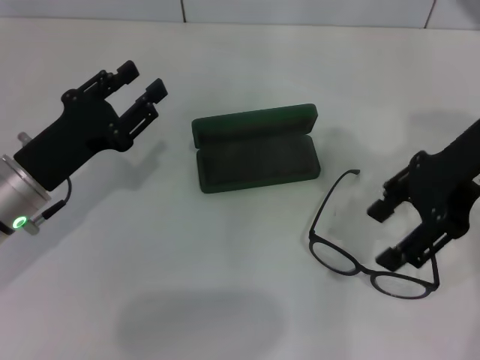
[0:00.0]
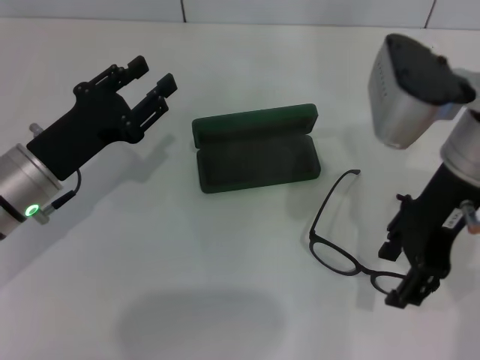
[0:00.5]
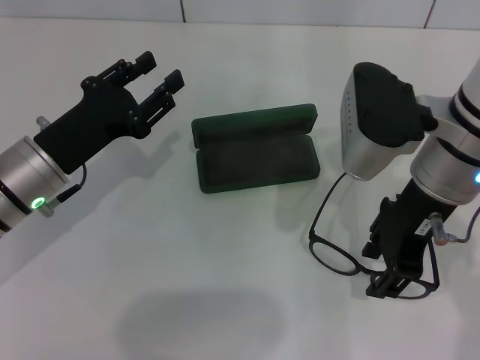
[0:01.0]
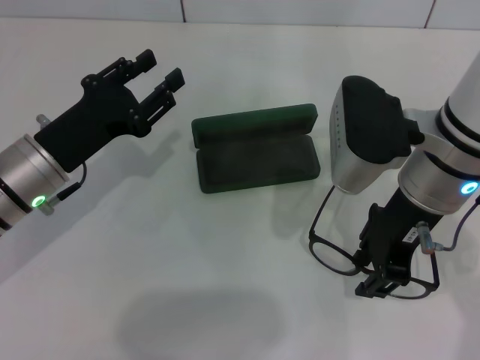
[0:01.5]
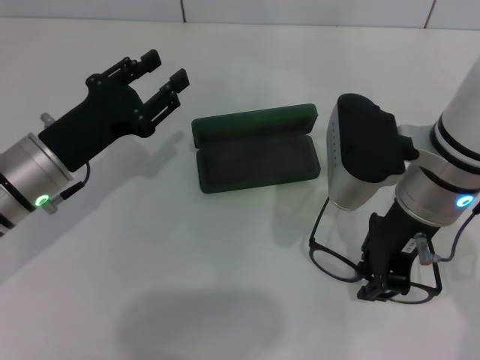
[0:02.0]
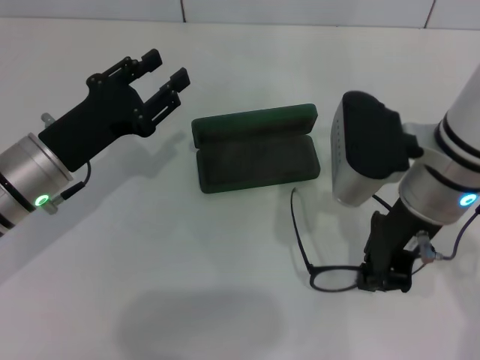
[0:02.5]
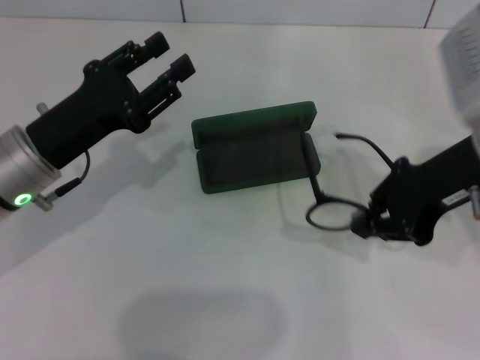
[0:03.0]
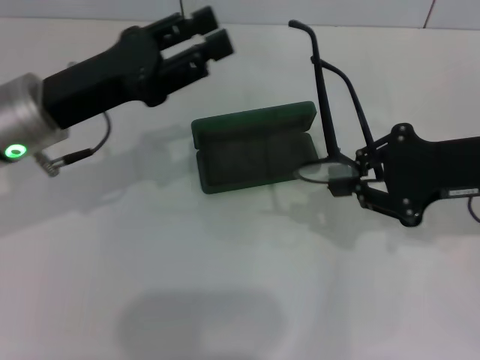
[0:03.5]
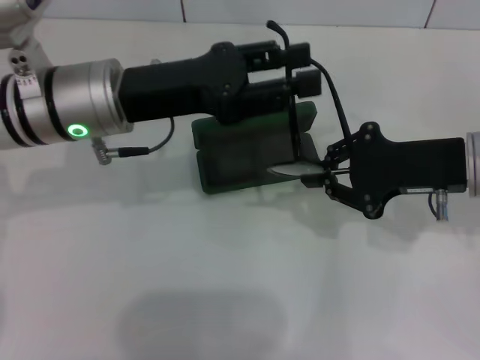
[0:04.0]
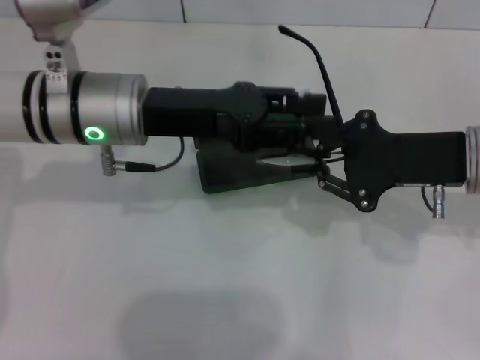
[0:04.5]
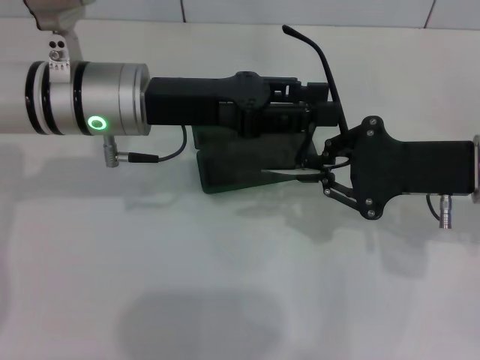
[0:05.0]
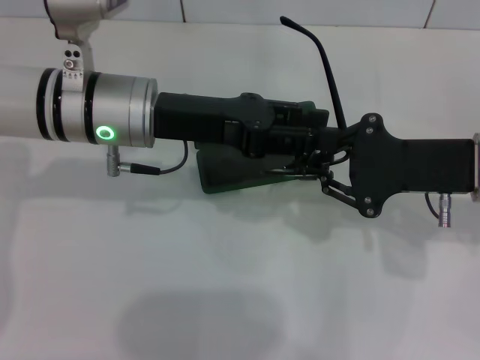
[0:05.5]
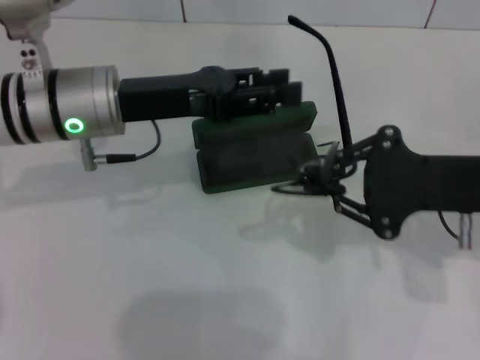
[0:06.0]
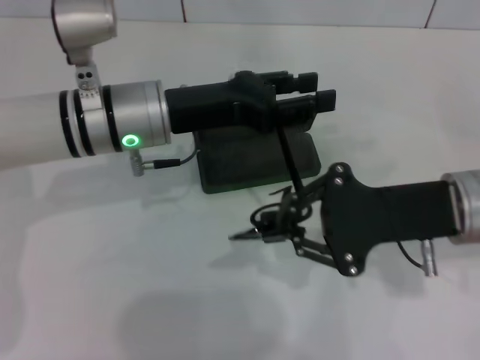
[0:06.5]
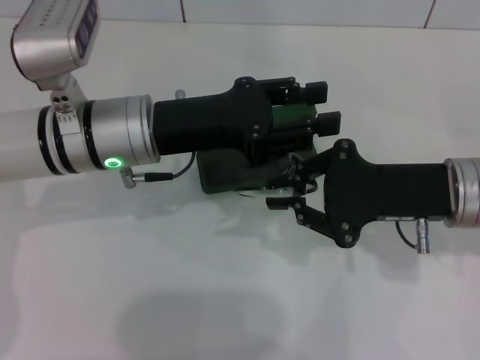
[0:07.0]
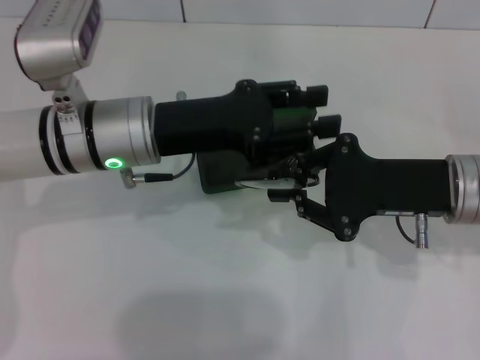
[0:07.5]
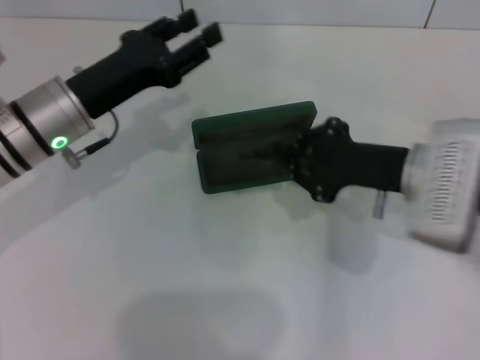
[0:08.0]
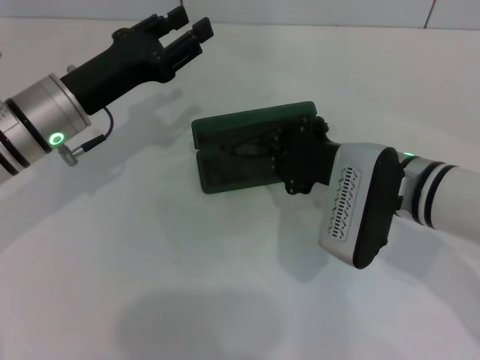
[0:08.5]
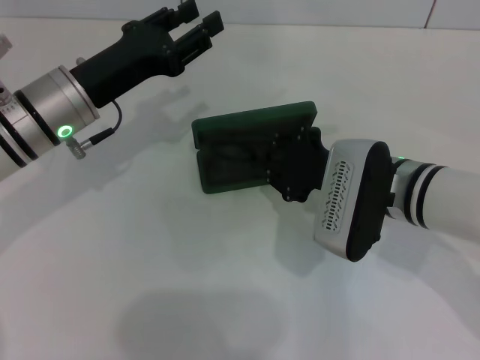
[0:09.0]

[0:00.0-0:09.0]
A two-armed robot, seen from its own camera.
Step, 0.0 to 2.0 s: Grab the eyeglass frame with your right hand.
Step, 3.0 to 7.5 s: Lift the glasses with your right hand.
0.0 to 2.0 s: The right gripper heads downward and to the left, covering approximately 10 cm, and closes up.
2.0 to 4.5 s: The right gripper is displaced to the right by some 10 cm, and closes up. Meanwhile the left gripper moves upward and to the right, approximately 10 cm.
7.0 to 9.0 s: Both grippers travel together to the left, some 5 cm.

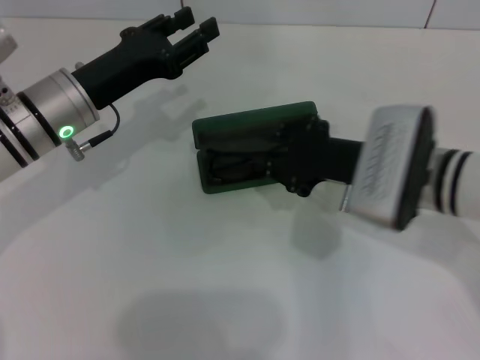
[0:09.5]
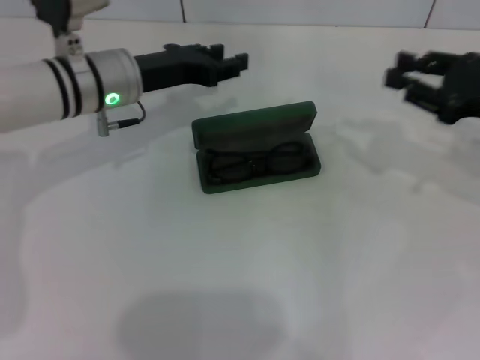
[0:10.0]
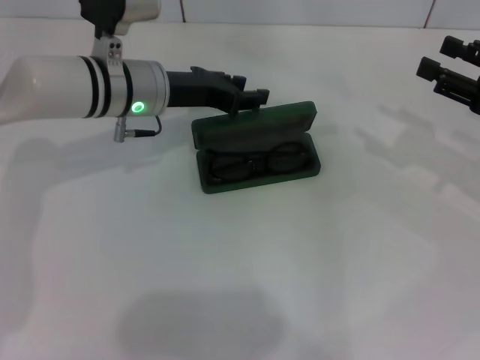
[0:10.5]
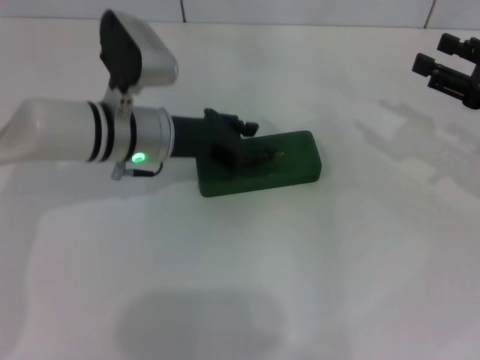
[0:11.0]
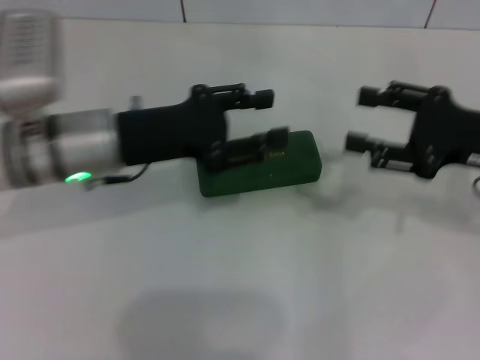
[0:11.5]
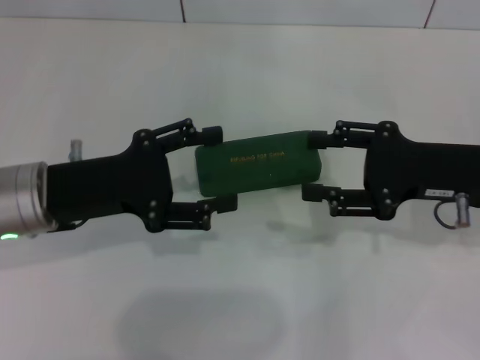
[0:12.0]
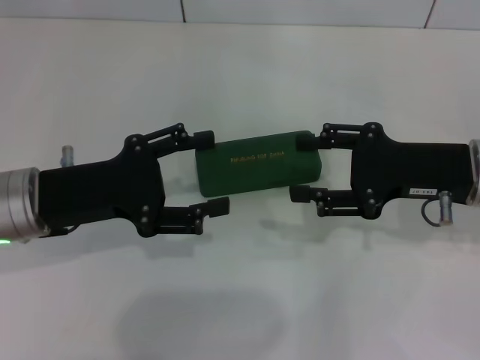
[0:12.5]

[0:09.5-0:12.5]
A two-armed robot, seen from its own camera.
Step, 9.5 to 10.5 s: Close the glasses case with your left hand.
9.5 to 11.0 s: The right gripper moves to the right, roughly 15 cm, and opens up, while the left gripper travels to the right by about 5 cm.
11.0 to 12.5 s: The right gripper heads to the left, covering some 10 cm. Meanwhile the left gripper goes about 15 cm backward and to the left, and opens up.

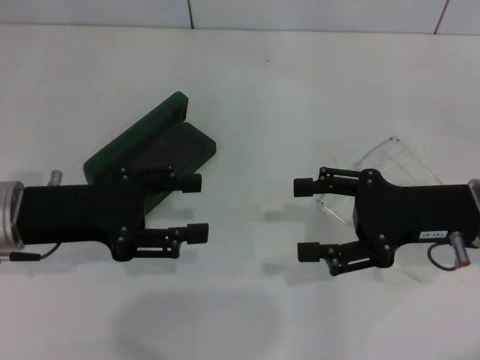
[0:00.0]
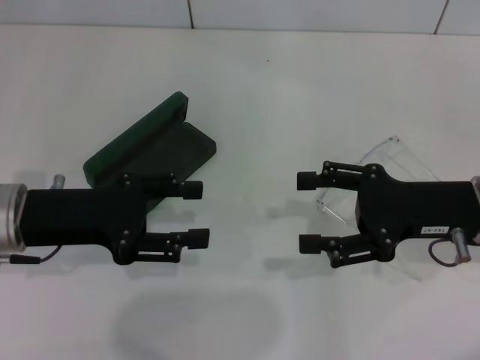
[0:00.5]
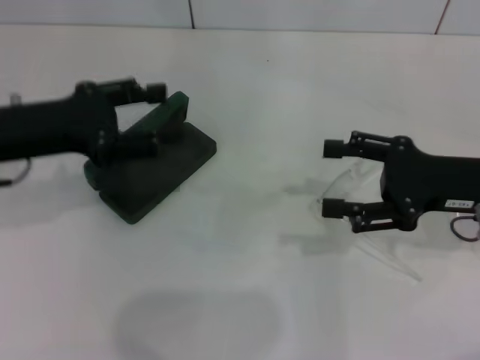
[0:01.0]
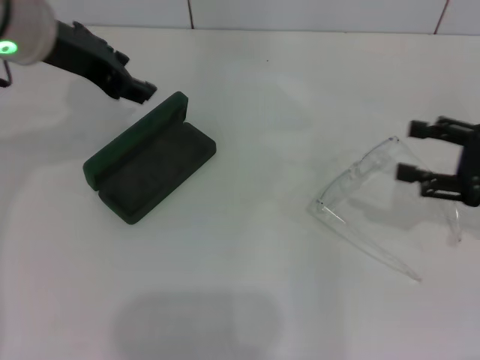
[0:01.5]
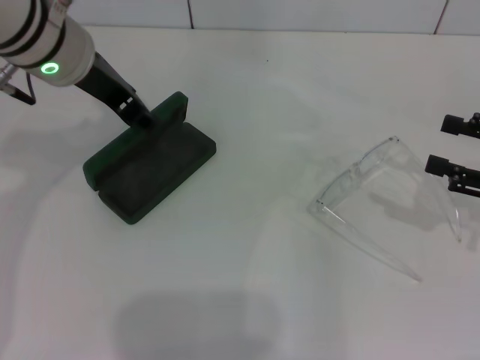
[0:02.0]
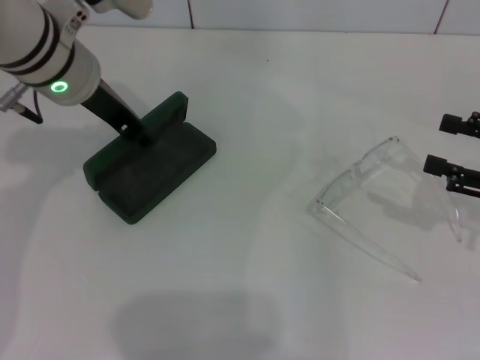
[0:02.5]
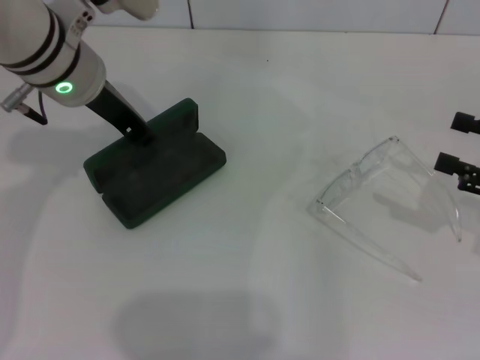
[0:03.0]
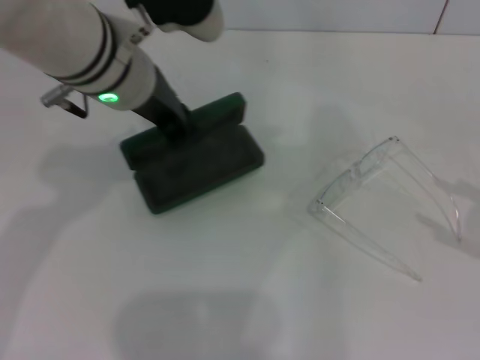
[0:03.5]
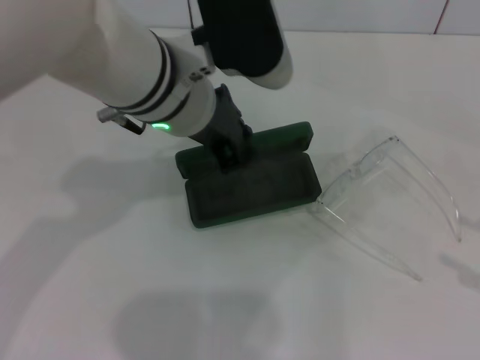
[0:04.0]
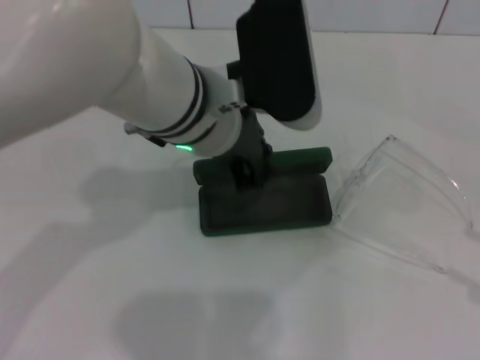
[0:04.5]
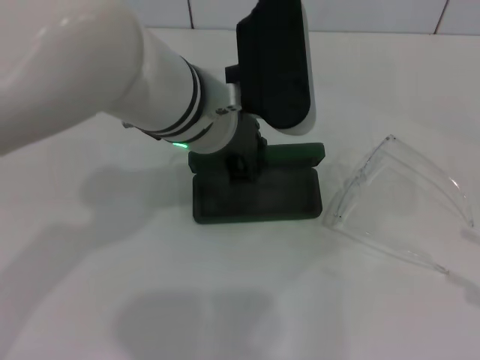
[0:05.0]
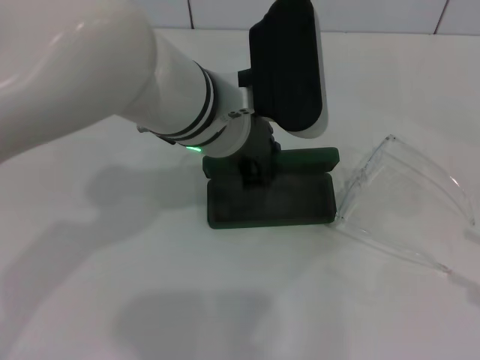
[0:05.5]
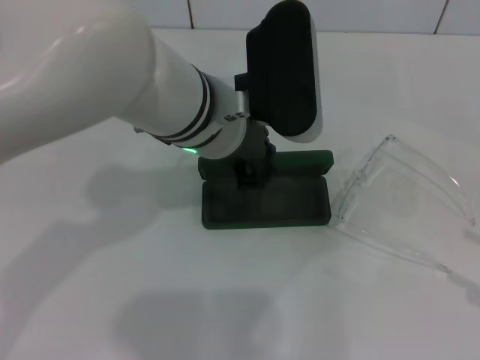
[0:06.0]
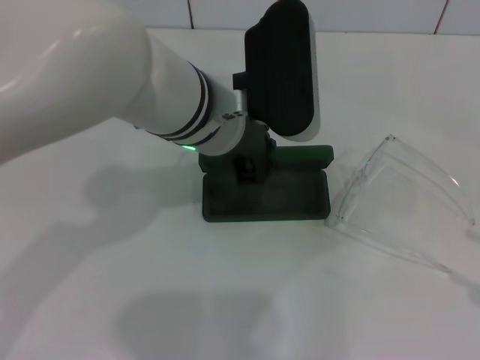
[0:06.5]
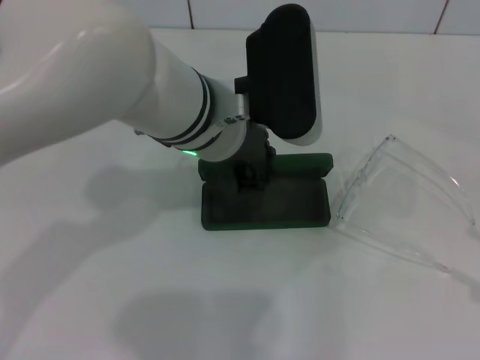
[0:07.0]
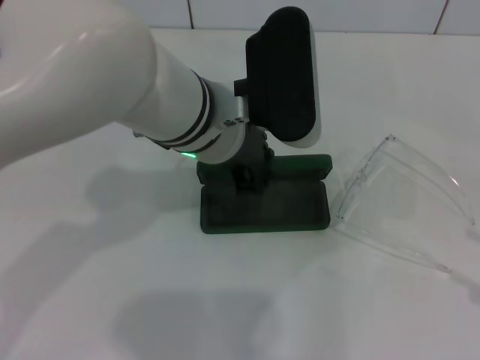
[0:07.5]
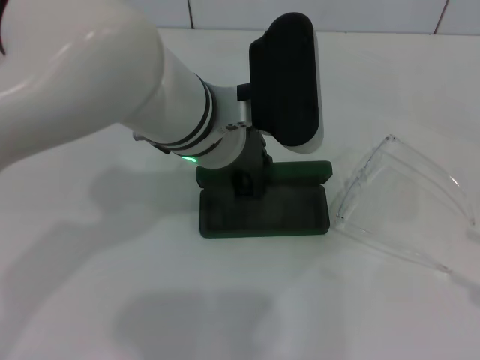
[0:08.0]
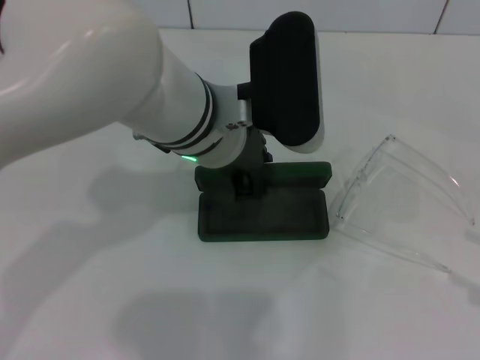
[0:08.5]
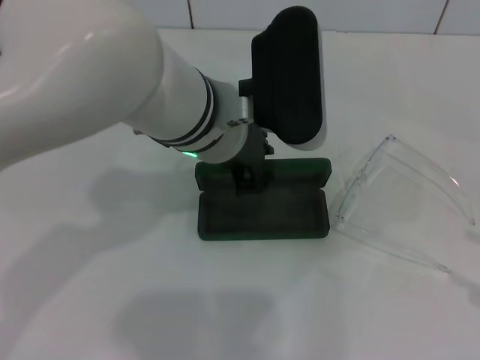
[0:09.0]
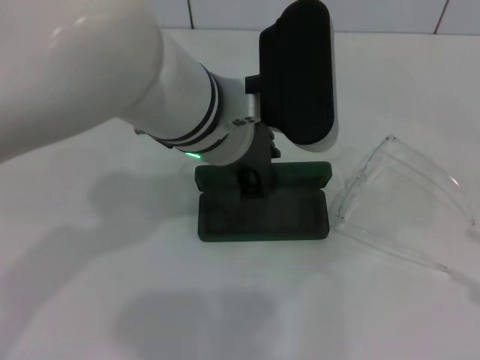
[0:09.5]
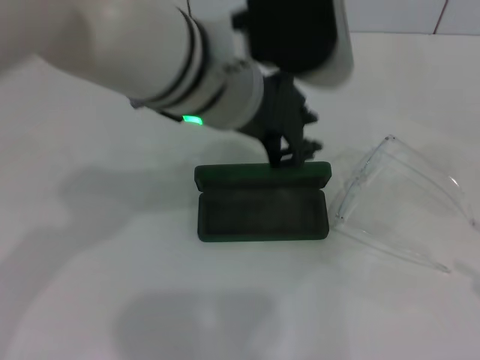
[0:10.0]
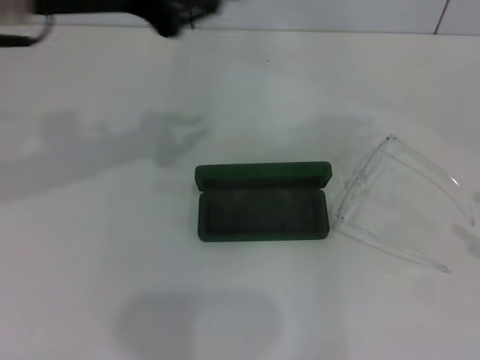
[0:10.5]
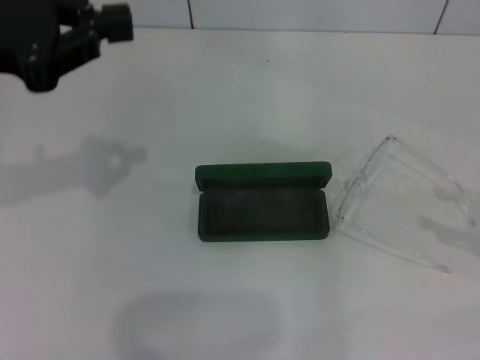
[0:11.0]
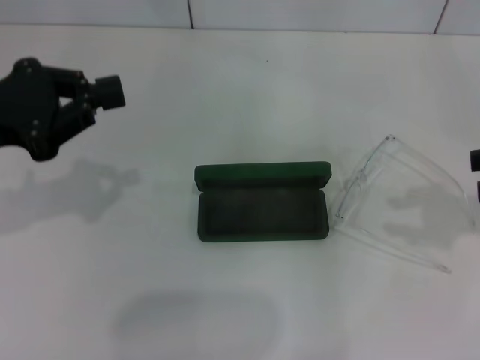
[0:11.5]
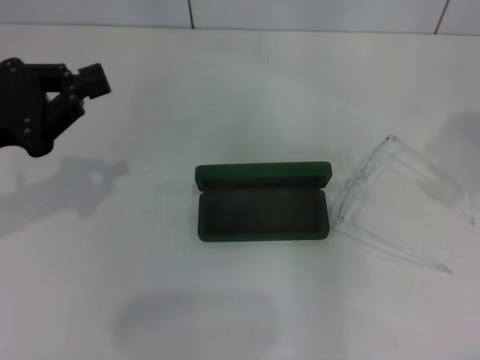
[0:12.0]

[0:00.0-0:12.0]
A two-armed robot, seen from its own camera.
Step, 0.0 to 2.5 s: Grab the glasses case with your left hand.
Step, 3.0 to 9.0 s: Place the glasses case in the center of the table with your left hand.
0.0 to 2.0 s: The right gripper is displaced to the right by about 10 cm. Meanwhile the left gripper is displaced upward, forward and to the right by roughly 15 cm.
2.0 to 4.0 s: The right gripper goes roughly 10 cm backward and to the right, while the left gripper shifts approximately 10 cm to the right, and closes.
6.0 to 8.0 s: Both grippers stay put.
8.0 to 10.0 s: The left gripper heads upward, covering approximately 5 cm.
10.0 to 12.0 s: The right gripper moves upward, forward and to the left, about 25 cm, and closes. The left gripper shifts approximately 25 cm to the left, and closes up.

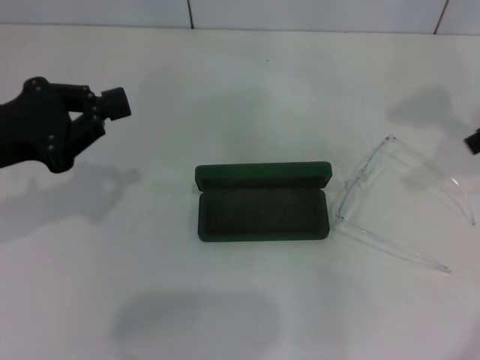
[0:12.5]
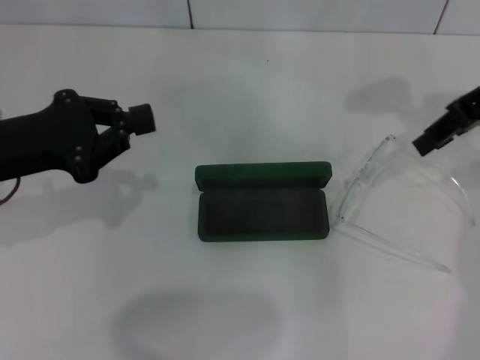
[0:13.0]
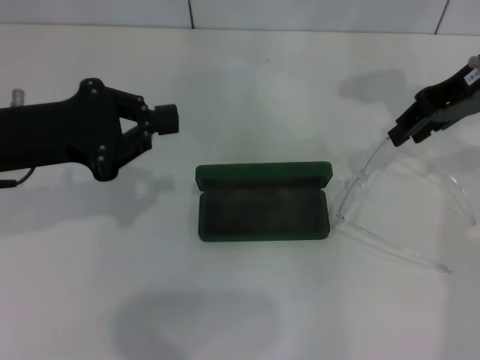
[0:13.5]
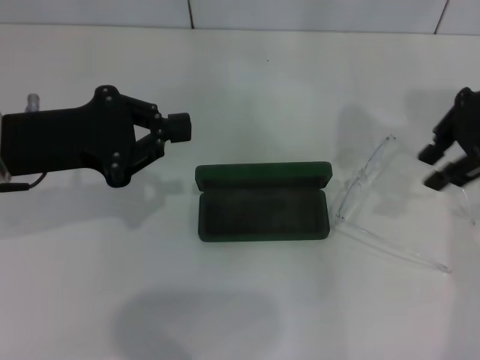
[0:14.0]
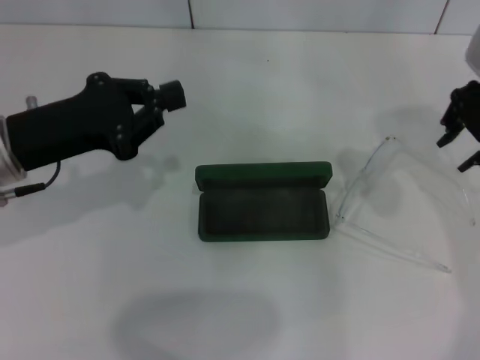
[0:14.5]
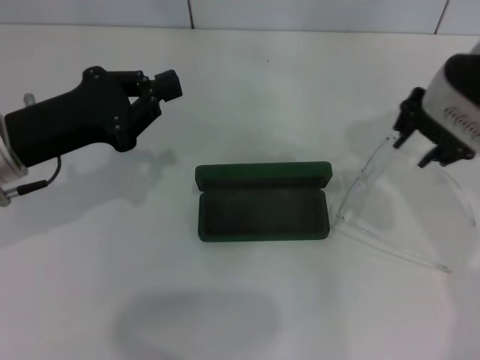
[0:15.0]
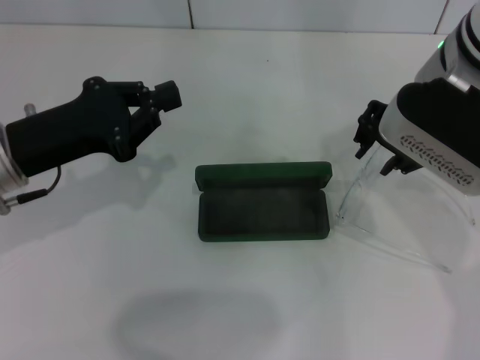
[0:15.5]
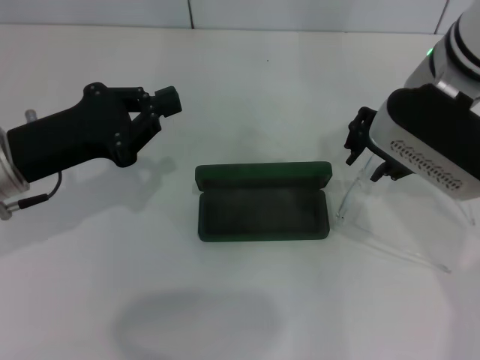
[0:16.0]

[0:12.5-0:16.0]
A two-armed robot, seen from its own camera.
12.5 to 14.5 s: The right gripper goes about 10 cm to the left; the left gripper shifts by roughly 5 cm.
14.5 to 16.0 s: The right gripper goes about 10 cm to the left.
